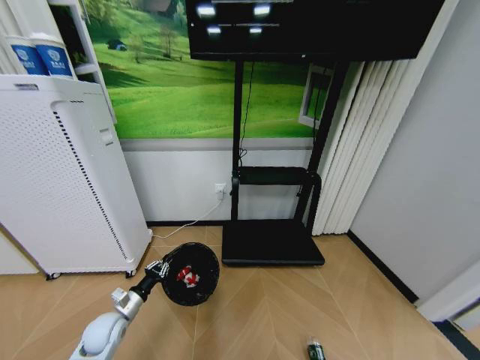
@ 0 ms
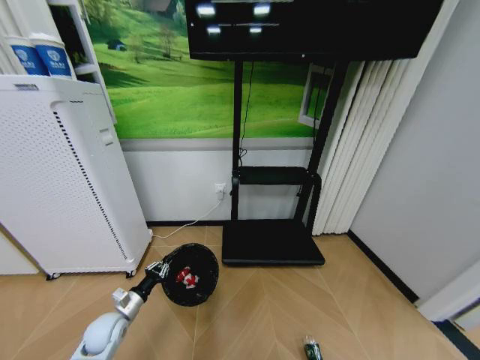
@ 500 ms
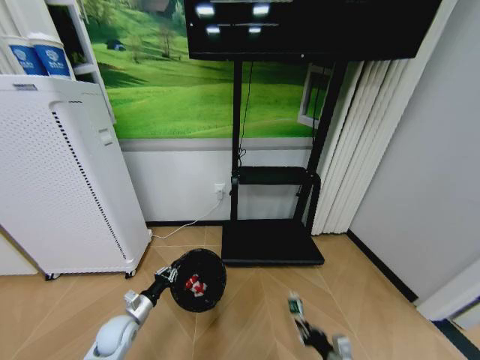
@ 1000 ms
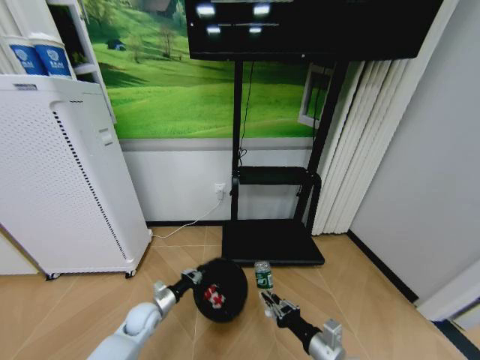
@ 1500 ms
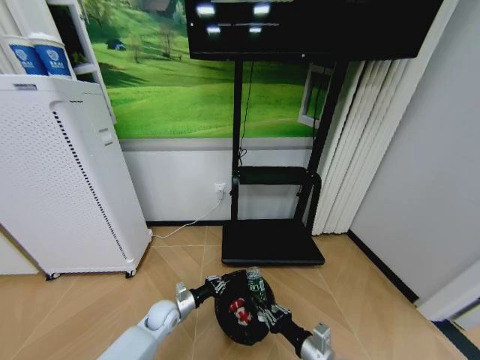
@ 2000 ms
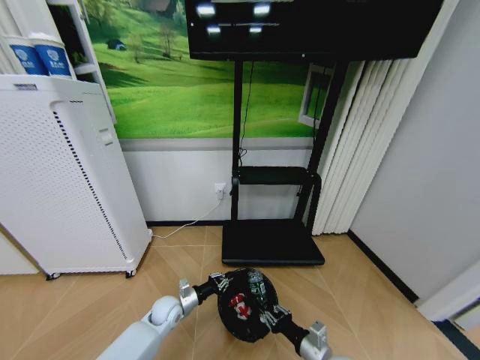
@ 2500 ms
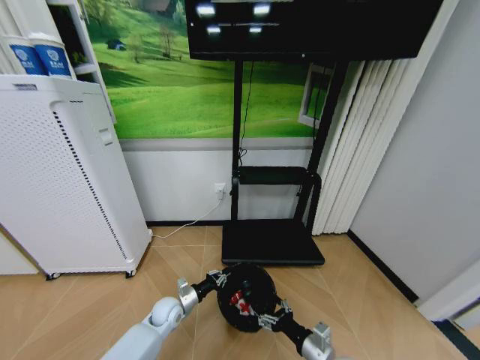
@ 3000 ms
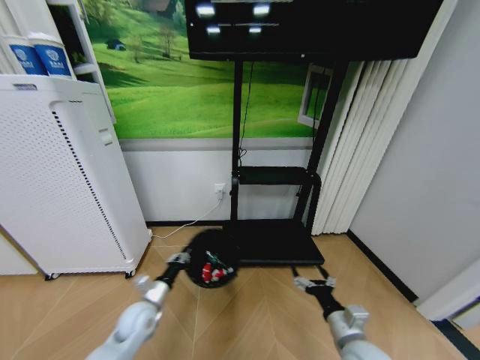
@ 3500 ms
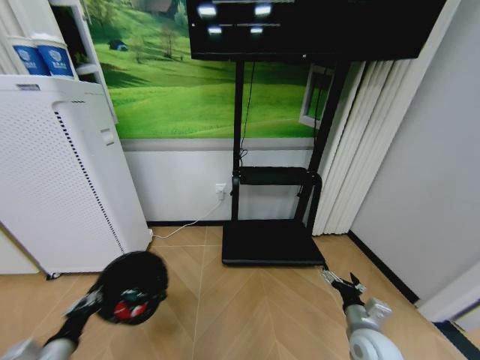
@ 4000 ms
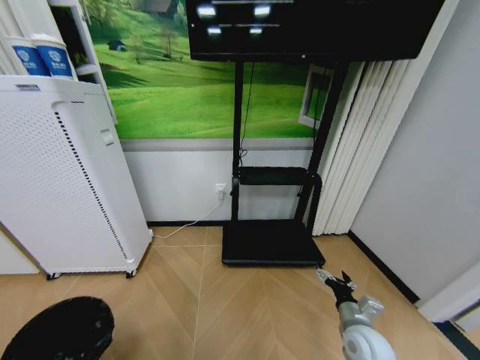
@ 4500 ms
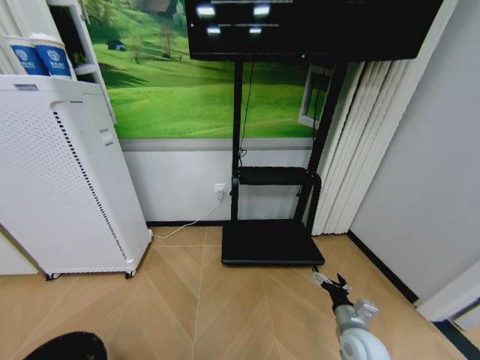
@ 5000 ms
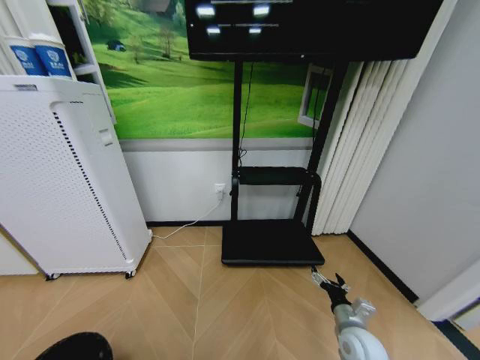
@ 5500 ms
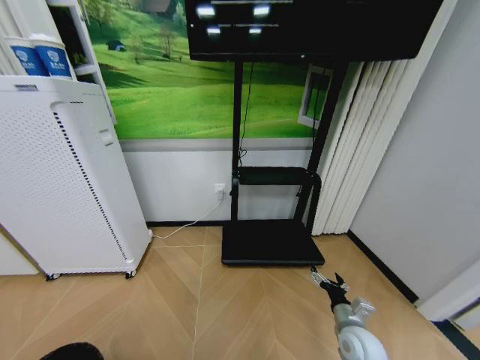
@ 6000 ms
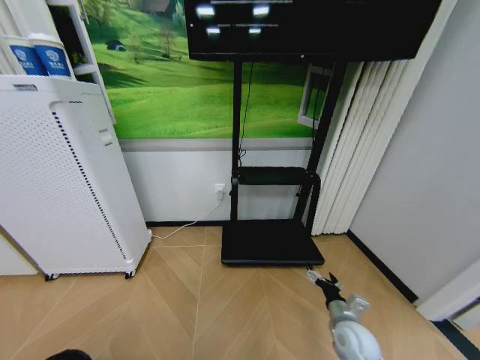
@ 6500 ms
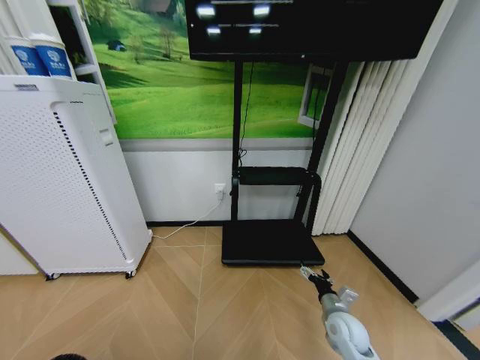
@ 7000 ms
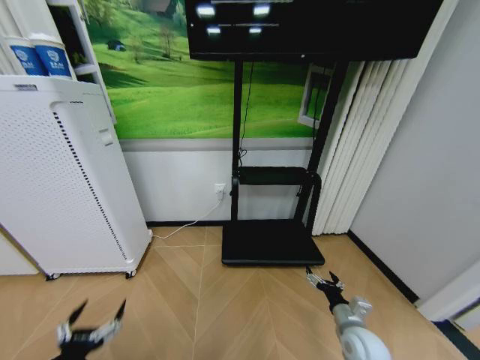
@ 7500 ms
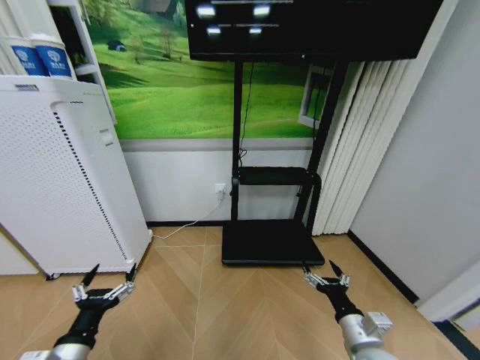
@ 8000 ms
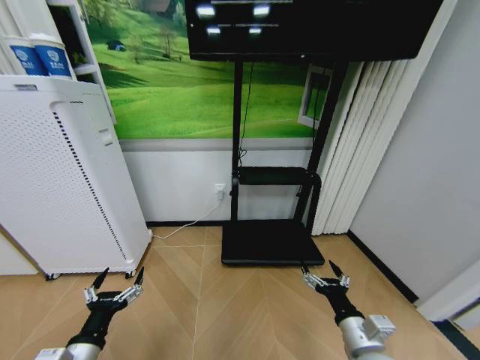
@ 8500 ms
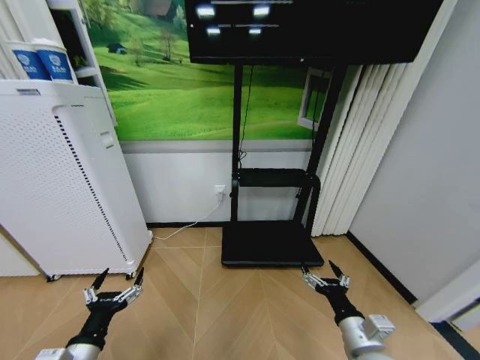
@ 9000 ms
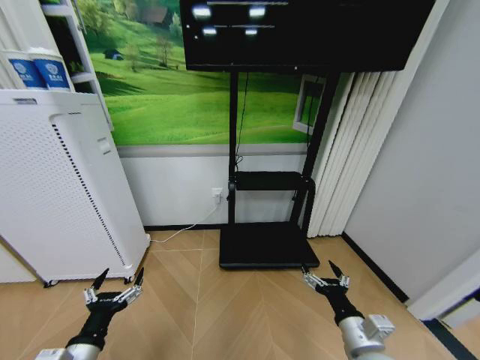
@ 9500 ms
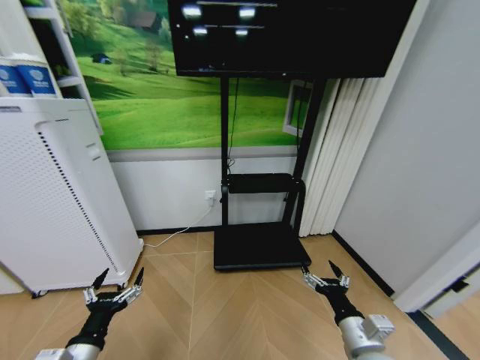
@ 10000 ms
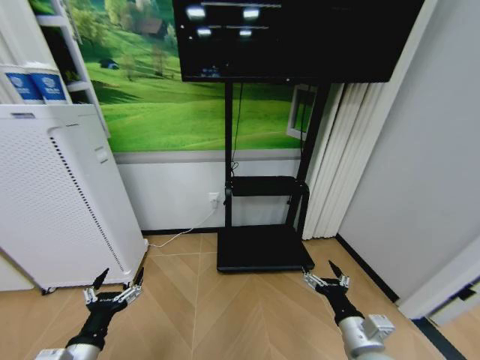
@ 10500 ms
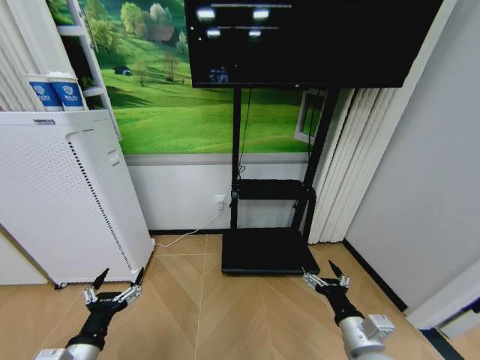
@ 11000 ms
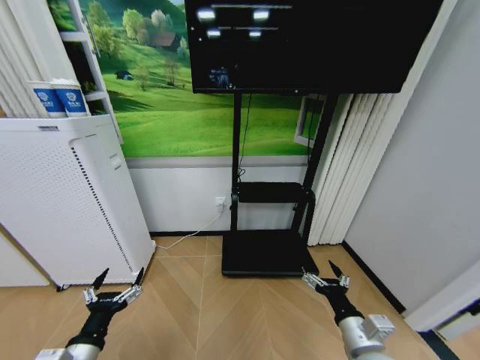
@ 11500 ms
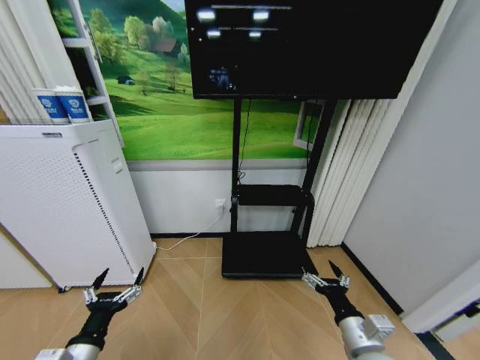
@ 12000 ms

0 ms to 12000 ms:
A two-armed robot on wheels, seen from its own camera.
Task of the whole recording: Pick up the trash bin and place the garbage on the floor into it.
0 ms to 2000 ms: The left gripper heads to the right, downward and forward, covering approximately 15 cm; the right gripper heads upward and to the left, covering about 20 cm.
2000 ms to 4000 ms: The right gripper shifts approximately 10 cm to the right and forward, and opens. Meanwhile the left gripper travels backward, to the left and upward by approximately 30 cm.
4000 ms to 6000 ms: The left gripper heads backward and downward, covering approximately 20 cm.
6000 ms to 8000 ms: The left gripper shifts approximately 25 cm forward, upward and to the right, and opens its fingers. The right gripper shifts about 10 cm upward and backward.

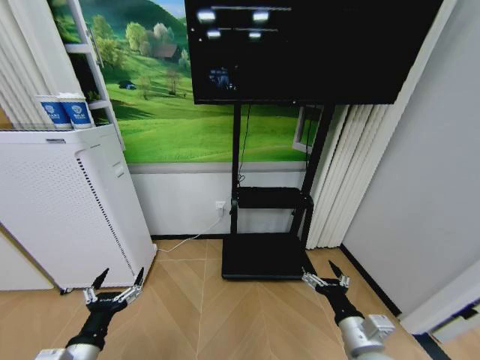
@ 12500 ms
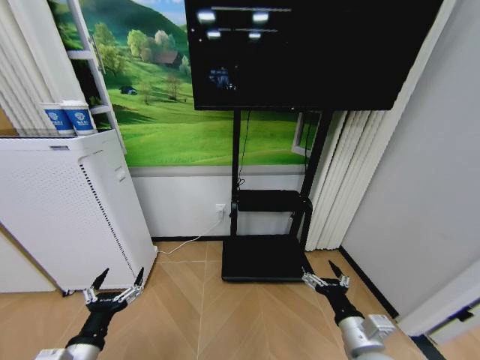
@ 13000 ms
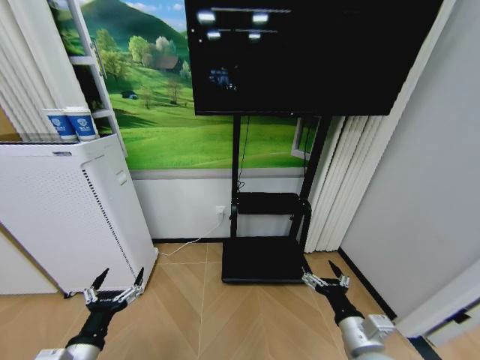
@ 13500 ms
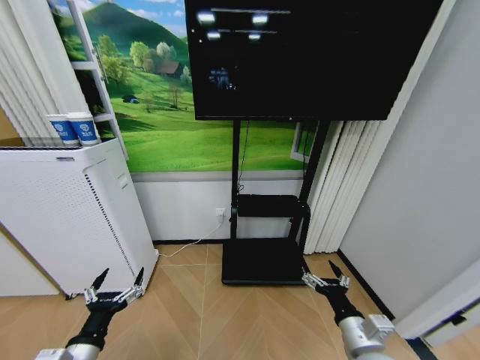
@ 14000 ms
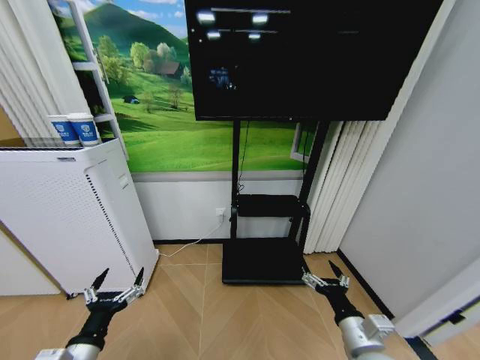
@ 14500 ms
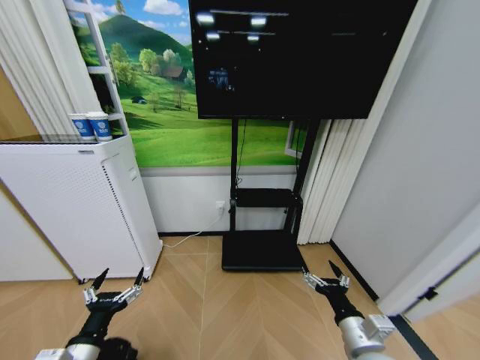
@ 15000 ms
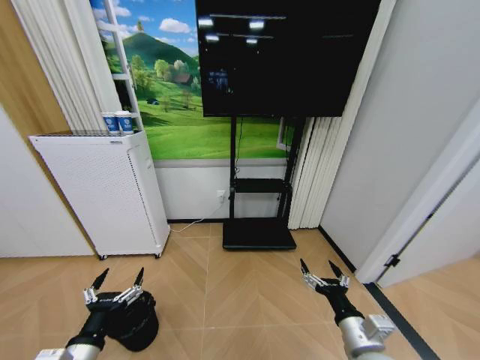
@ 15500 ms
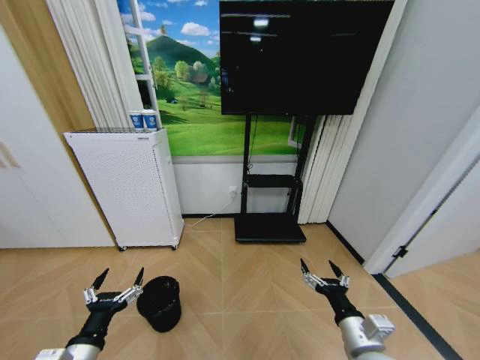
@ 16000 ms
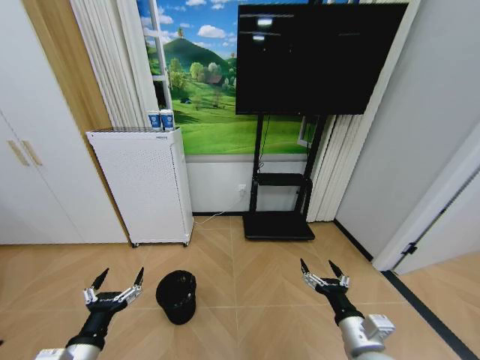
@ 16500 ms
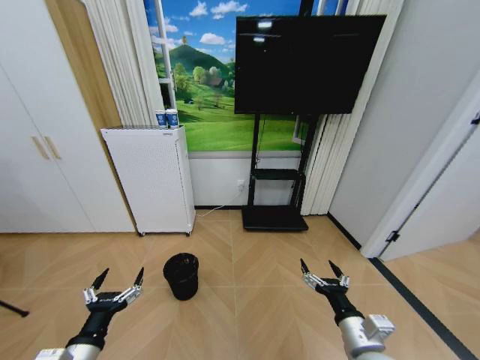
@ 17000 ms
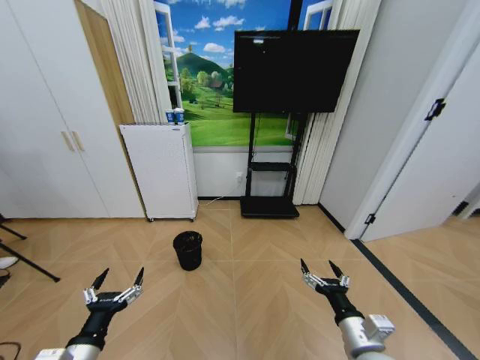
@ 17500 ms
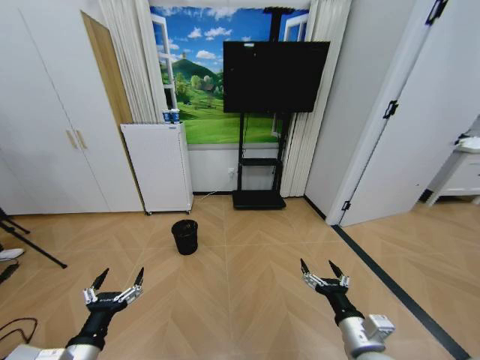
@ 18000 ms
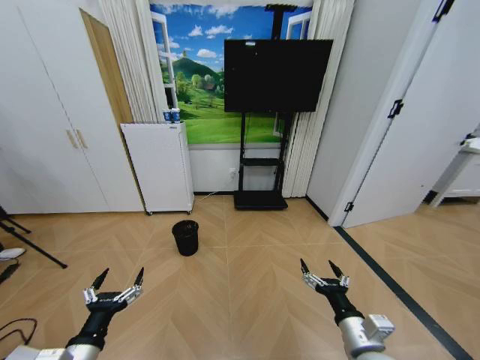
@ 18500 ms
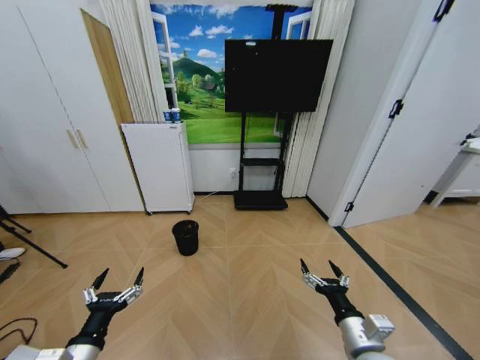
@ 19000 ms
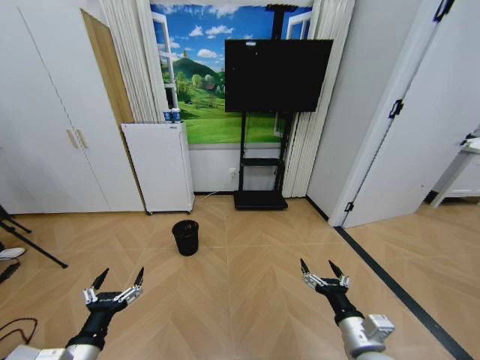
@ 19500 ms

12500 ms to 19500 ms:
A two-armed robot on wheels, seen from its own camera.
Task of the whole recording: Pick up the trash bin and place the garbage on the floor into it.
12500 ms to 14500 ms: Both grippers stay about where they are.

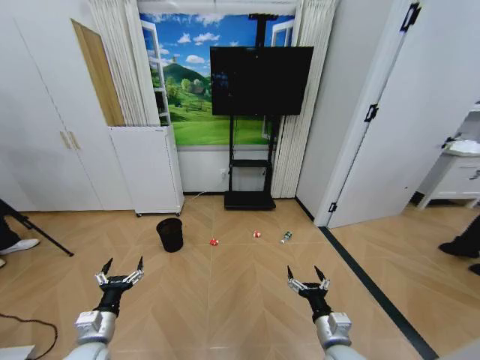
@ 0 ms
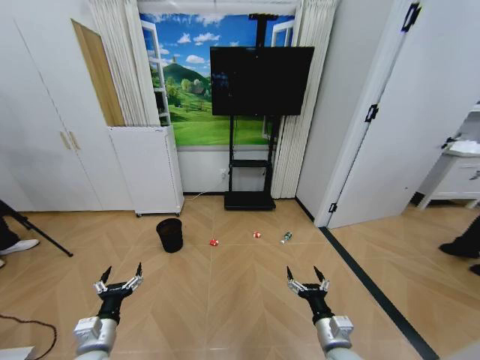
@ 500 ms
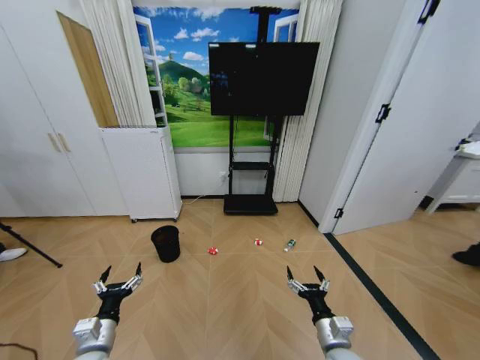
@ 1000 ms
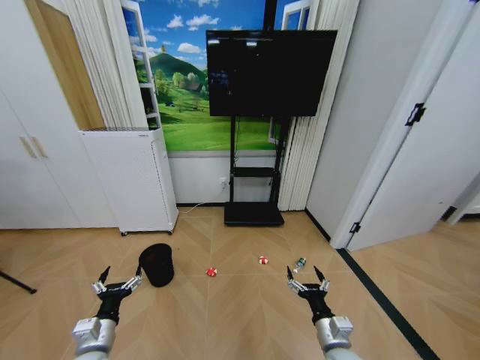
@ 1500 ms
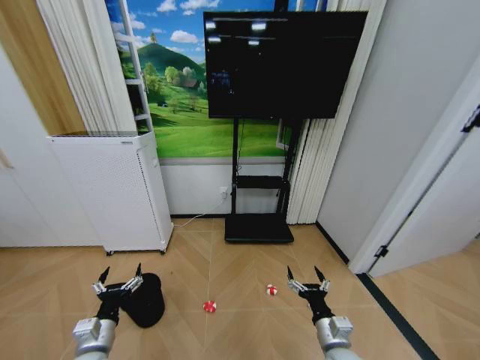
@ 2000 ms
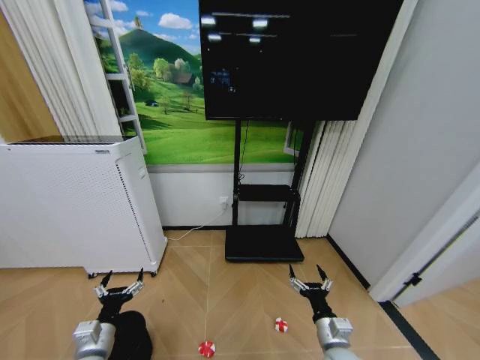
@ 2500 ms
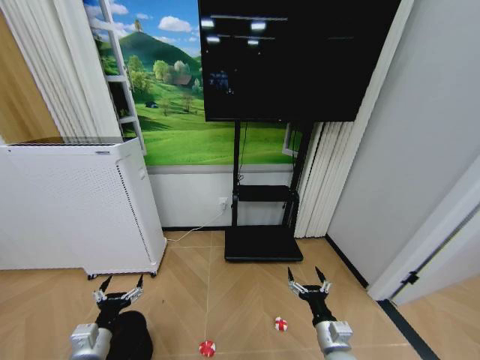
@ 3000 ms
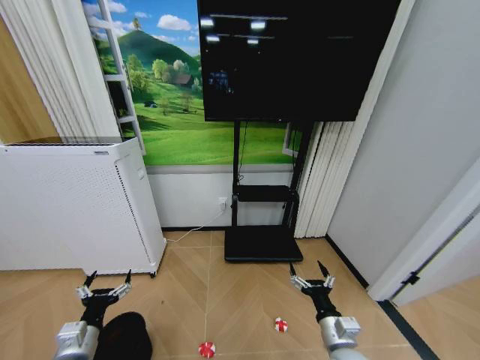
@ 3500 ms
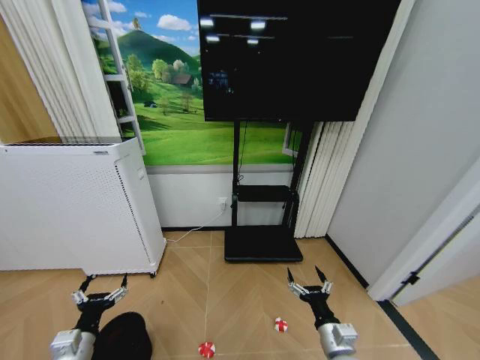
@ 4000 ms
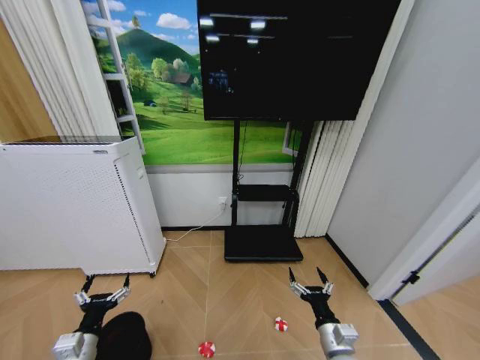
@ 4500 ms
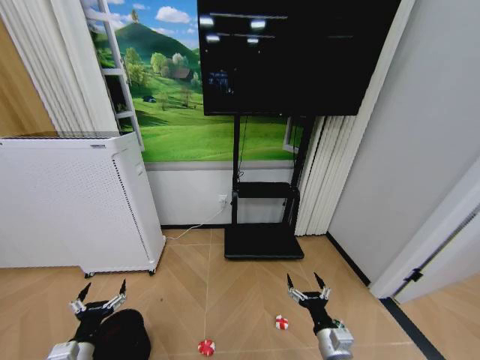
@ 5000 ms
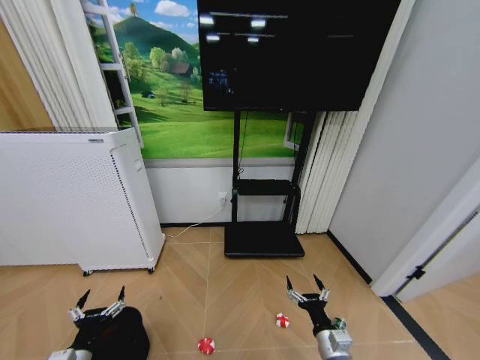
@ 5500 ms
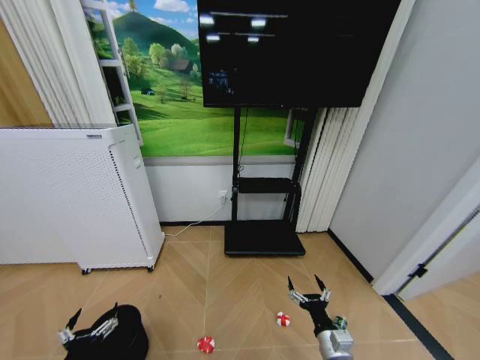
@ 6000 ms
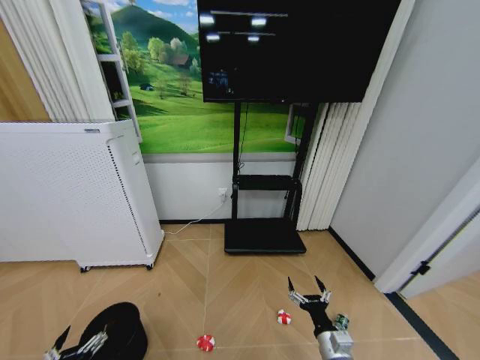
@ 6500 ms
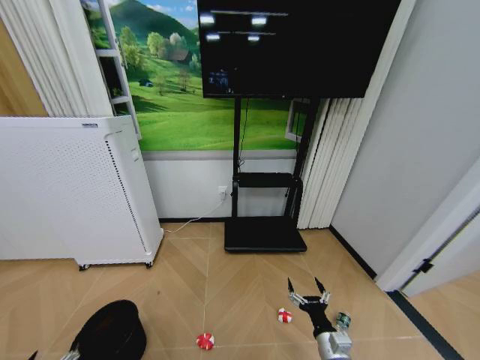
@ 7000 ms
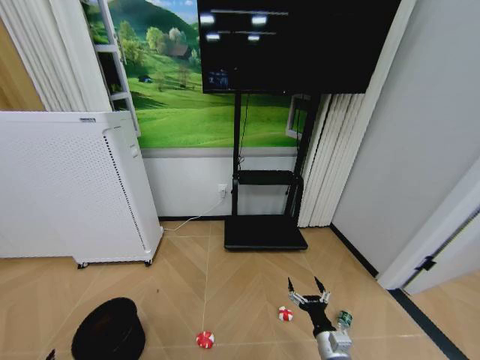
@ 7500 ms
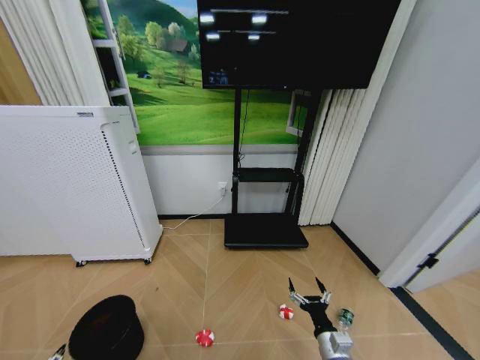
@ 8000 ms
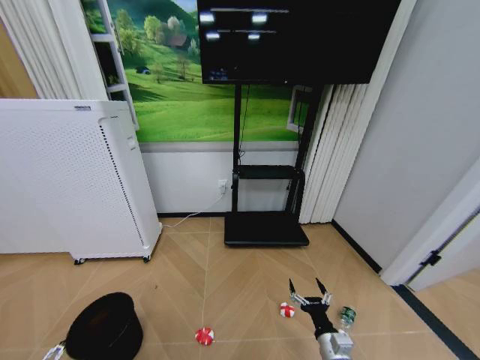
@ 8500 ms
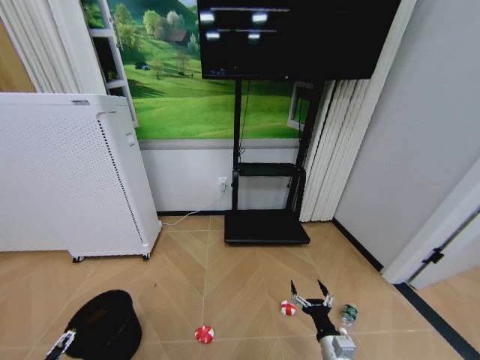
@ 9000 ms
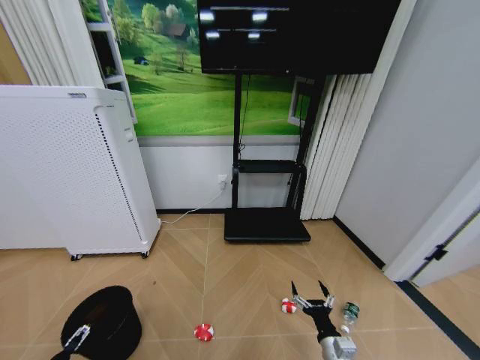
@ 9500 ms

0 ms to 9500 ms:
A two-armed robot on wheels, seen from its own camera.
Task of the whole recording: Pick up the trash bin and place the garbage on the floor into it.
4000 ms to 5500 ms: The grippers stay close to where they were, moving slightly.
5500 ms to 7500 ms: The left gripper travels backward and to the left by roughly 15 cm.
7500 ms to 9500 ms: The left gripper travels forward by some 10 cm.
